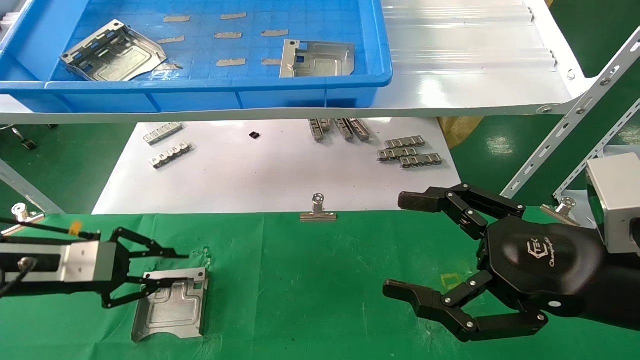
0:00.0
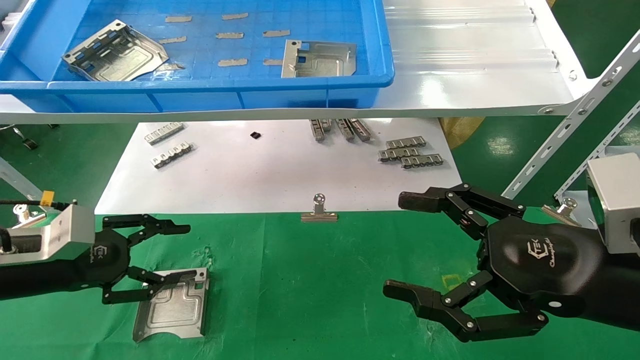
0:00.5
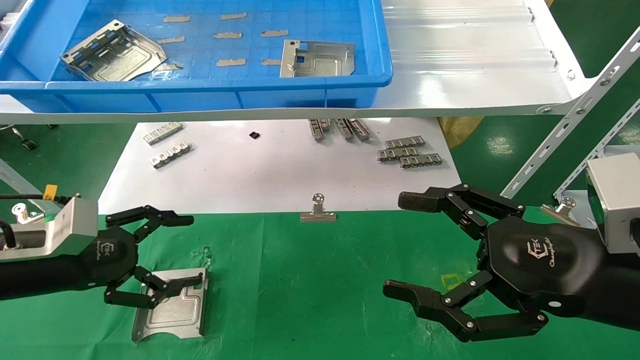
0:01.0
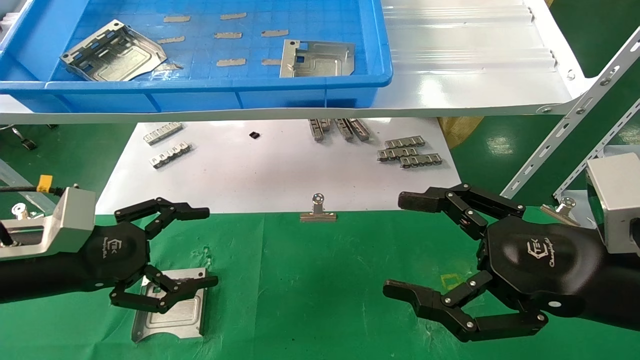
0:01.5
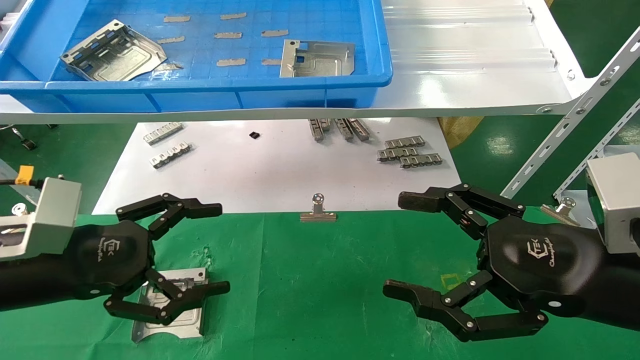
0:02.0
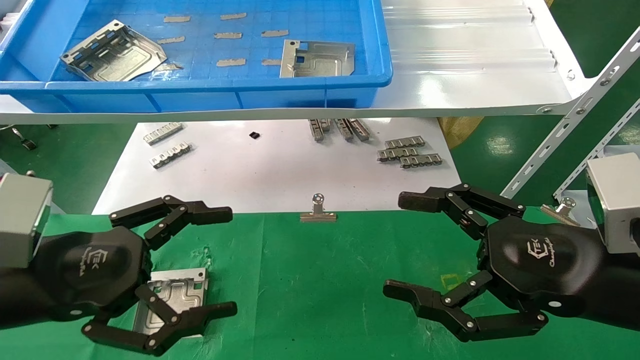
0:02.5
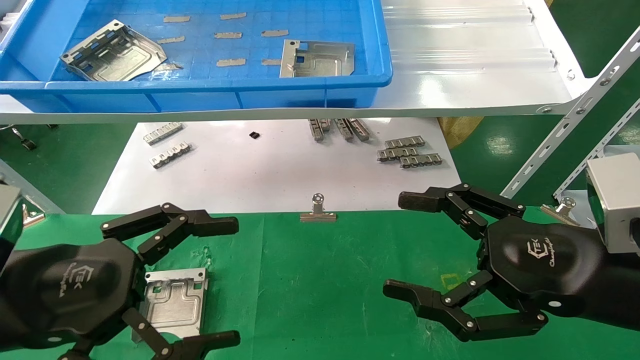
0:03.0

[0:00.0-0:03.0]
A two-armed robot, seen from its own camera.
Task of the whole recording: use the mechanical arm to pick up the parts and place them on the table.
0:00.0 to 0:01.5: The left gripper ends up approximately 5 cm from where it was, and opens its fingers.
0:01.5 to 0:03.0: The left gripper is displaced backward and to the right by about 10 cm.
